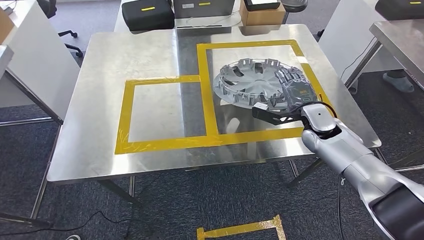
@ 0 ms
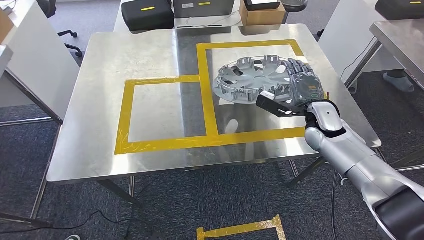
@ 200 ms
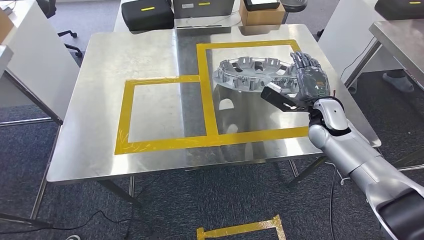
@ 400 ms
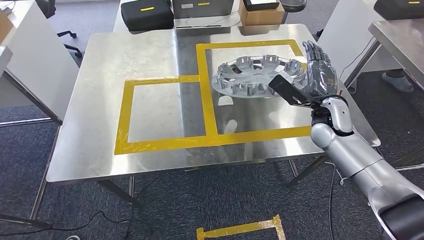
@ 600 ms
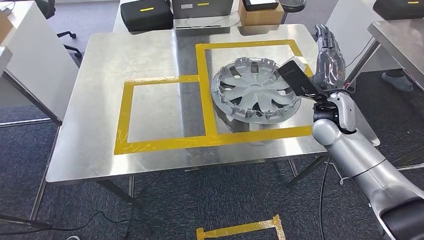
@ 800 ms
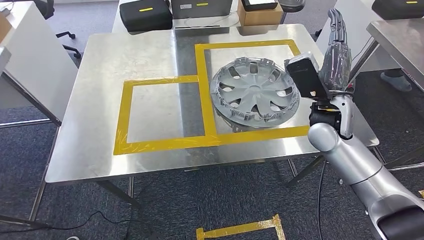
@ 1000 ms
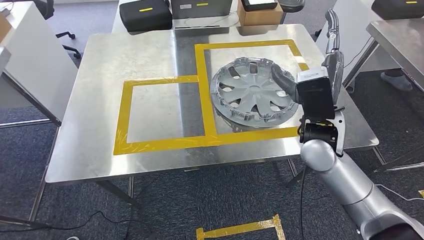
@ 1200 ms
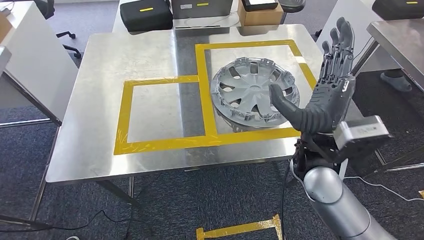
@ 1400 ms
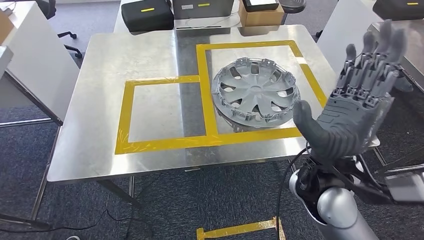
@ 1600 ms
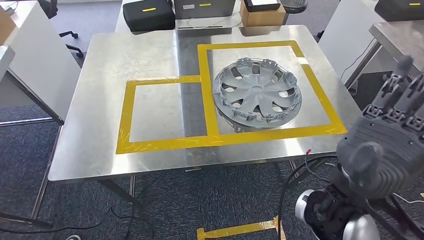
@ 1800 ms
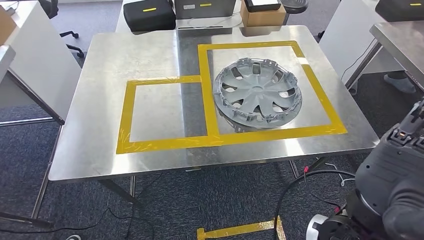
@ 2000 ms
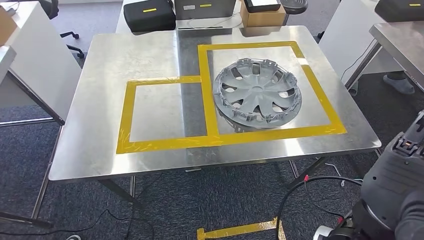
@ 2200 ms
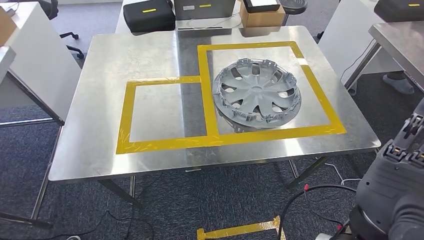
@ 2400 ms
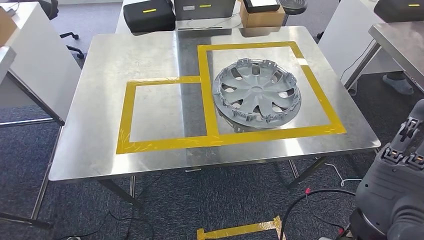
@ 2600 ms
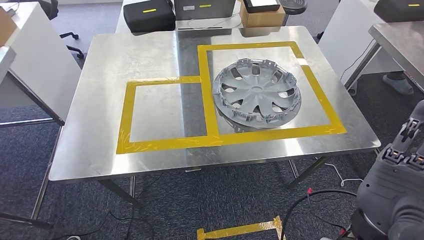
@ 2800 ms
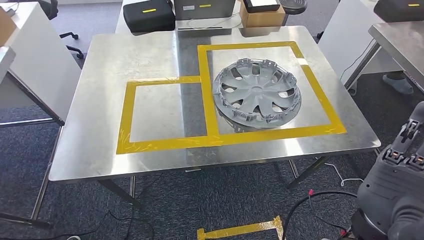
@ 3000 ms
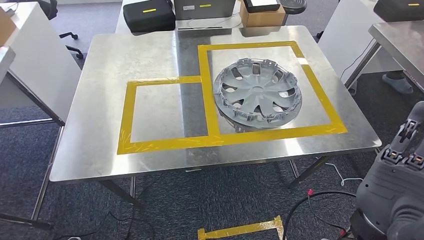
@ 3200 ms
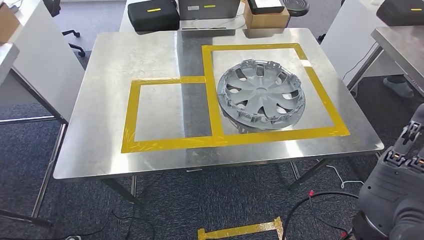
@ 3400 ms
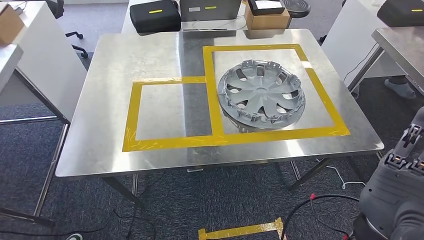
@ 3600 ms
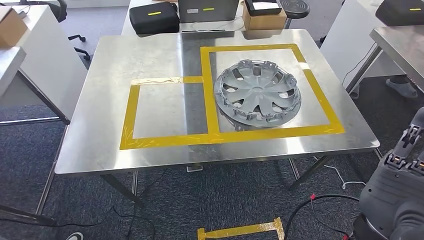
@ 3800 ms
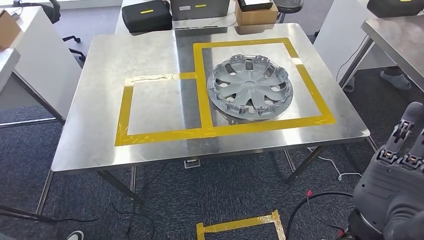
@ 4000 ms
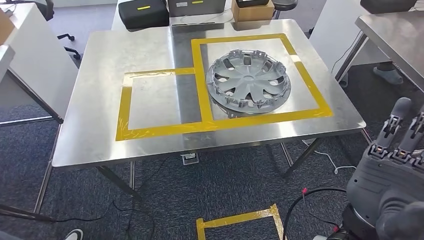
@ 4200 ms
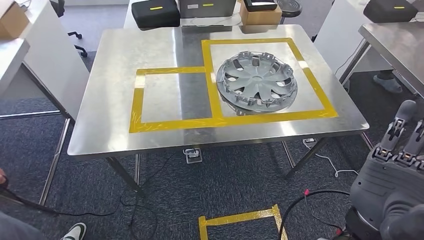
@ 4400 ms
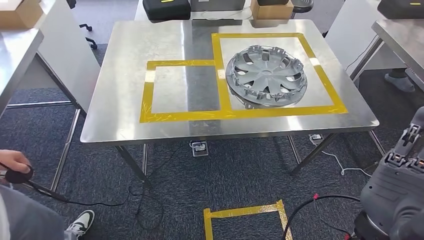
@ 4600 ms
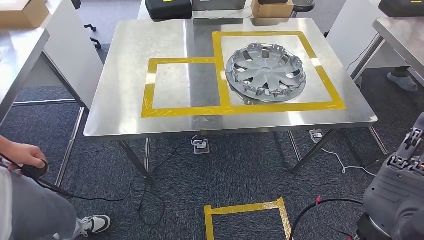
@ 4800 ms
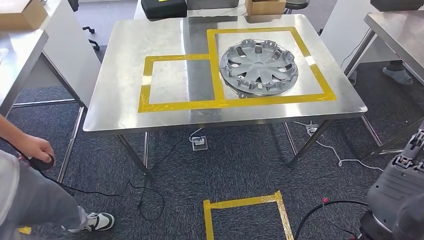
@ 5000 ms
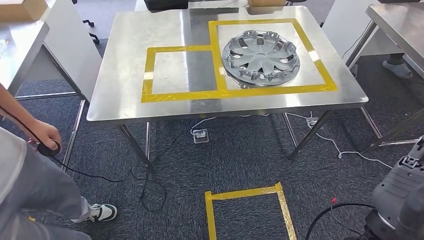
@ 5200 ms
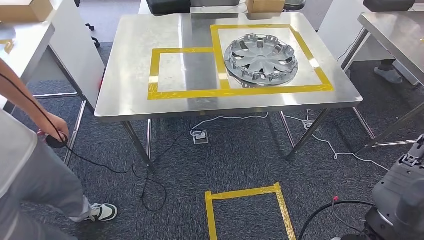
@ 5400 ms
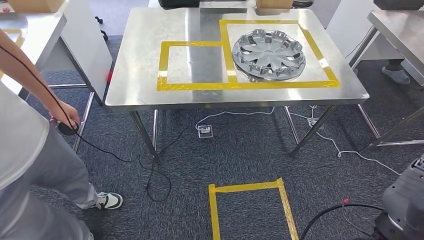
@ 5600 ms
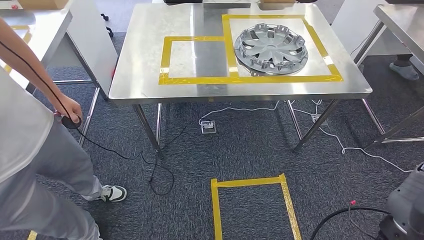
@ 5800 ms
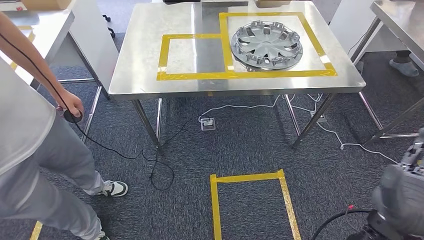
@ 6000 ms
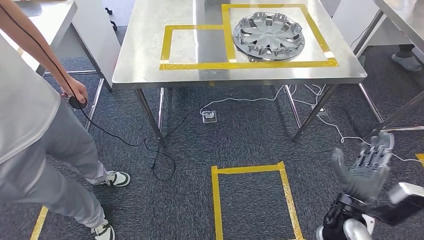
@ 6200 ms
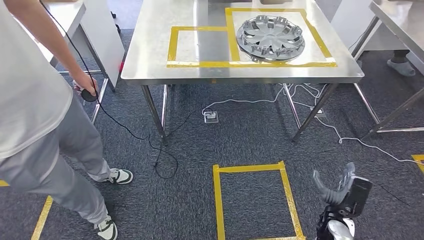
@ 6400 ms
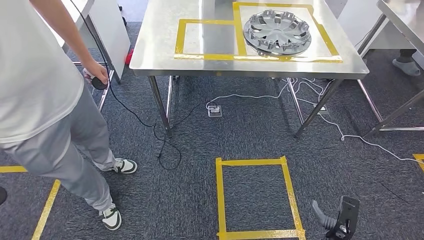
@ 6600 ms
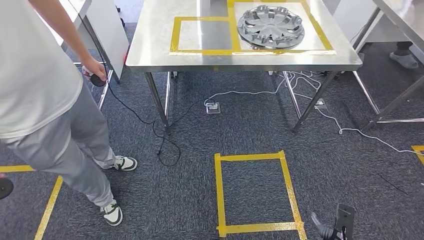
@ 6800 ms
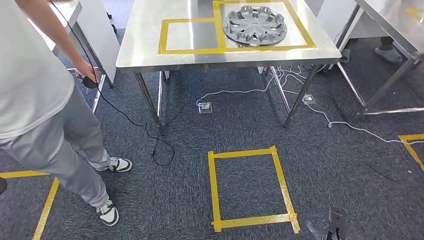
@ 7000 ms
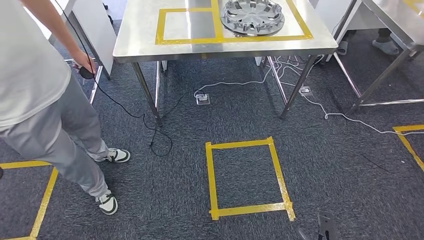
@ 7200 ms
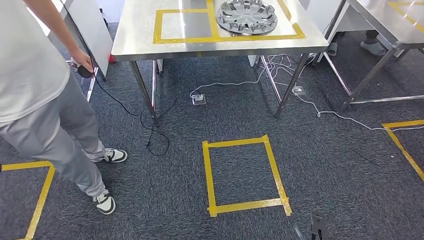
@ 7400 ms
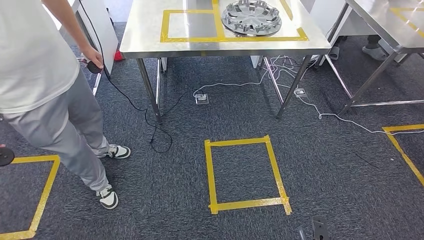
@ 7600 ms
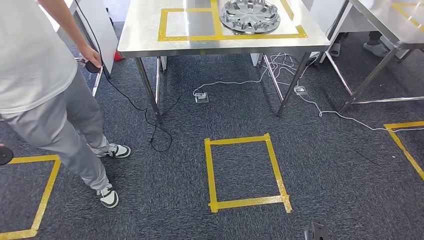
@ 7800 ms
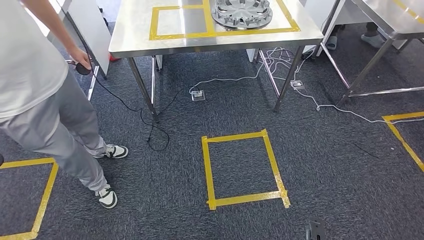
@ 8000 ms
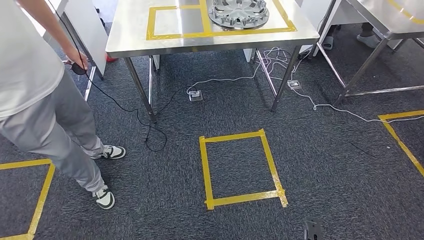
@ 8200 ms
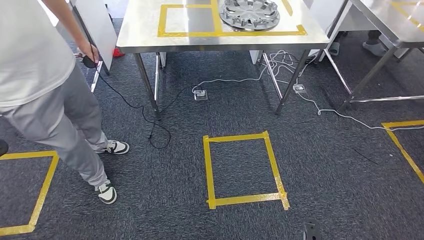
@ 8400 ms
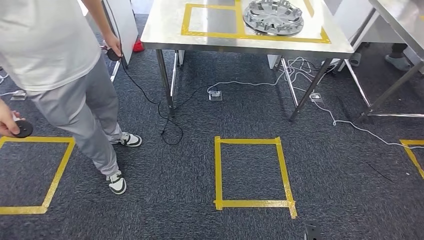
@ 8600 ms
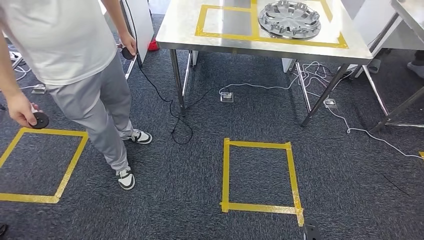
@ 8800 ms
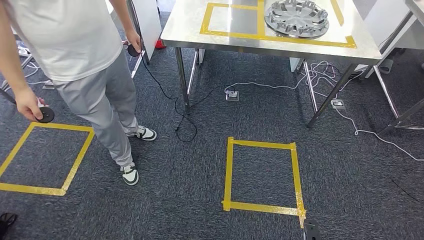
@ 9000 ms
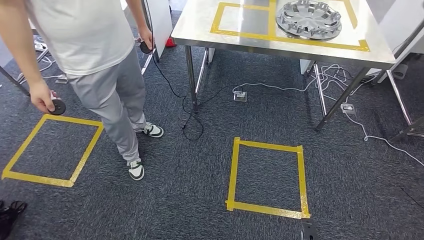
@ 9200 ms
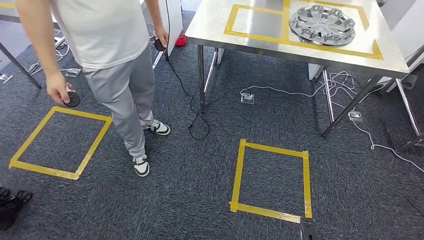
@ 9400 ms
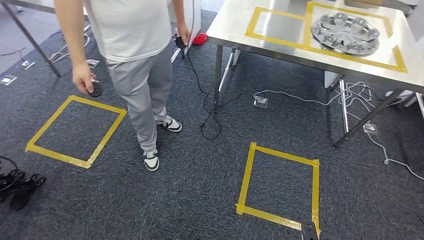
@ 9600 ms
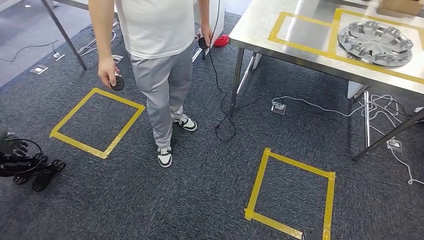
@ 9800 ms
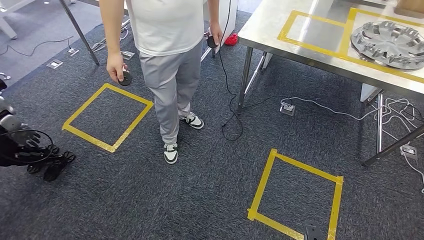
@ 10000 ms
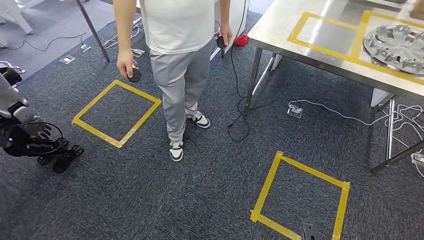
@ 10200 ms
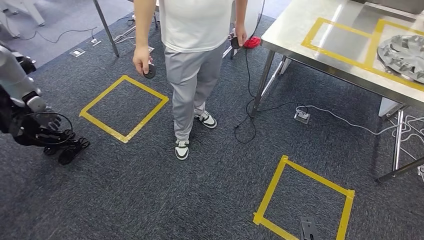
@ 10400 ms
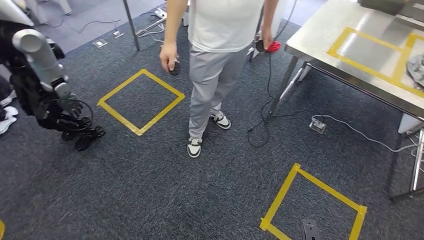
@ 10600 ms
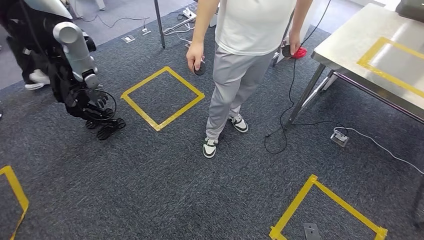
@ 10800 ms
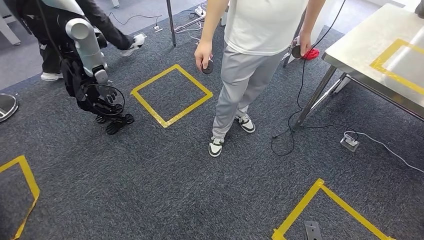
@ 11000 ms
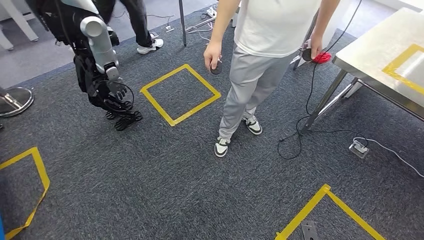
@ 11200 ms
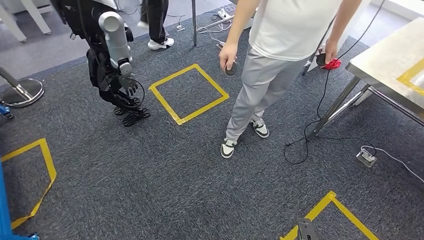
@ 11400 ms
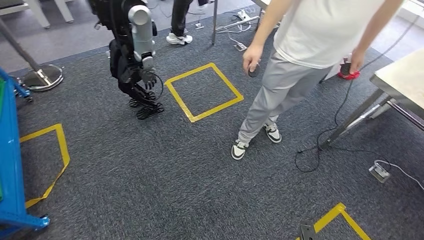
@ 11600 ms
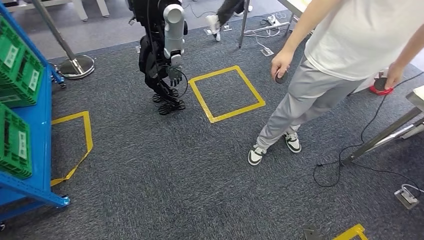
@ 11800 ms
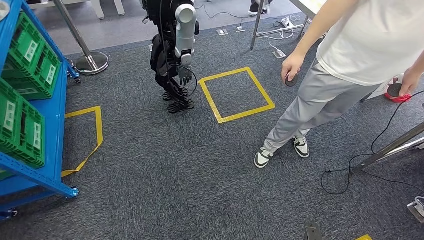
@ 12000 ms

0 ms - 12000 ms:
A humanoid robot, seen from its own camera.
1600 ms - 3000 ms: The right hand goes about 10 cm backward.

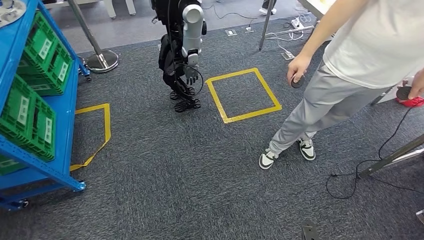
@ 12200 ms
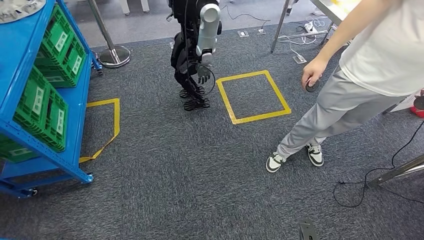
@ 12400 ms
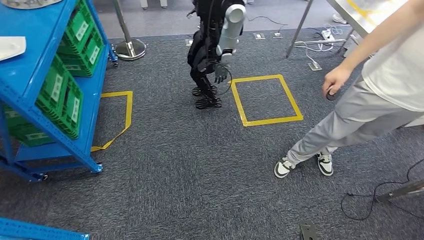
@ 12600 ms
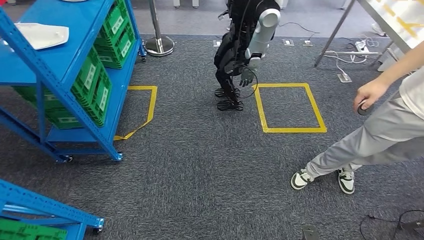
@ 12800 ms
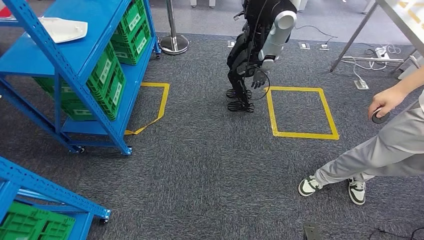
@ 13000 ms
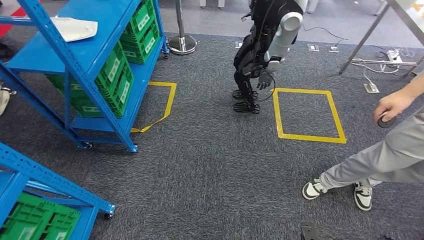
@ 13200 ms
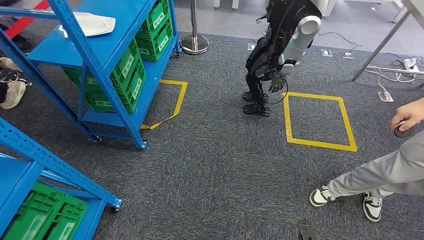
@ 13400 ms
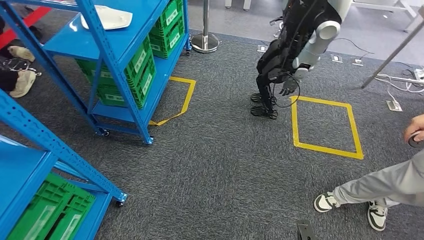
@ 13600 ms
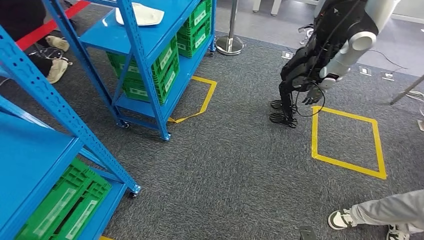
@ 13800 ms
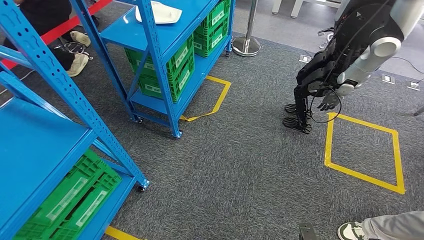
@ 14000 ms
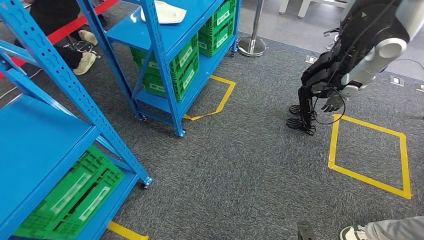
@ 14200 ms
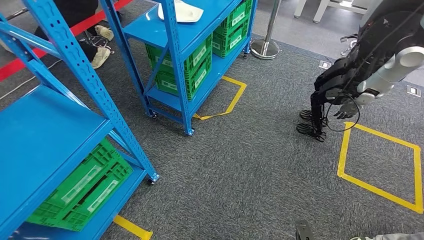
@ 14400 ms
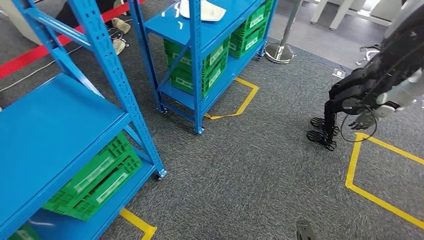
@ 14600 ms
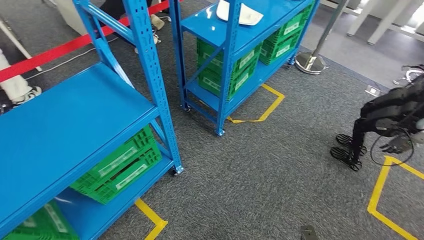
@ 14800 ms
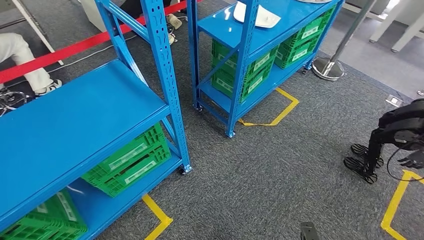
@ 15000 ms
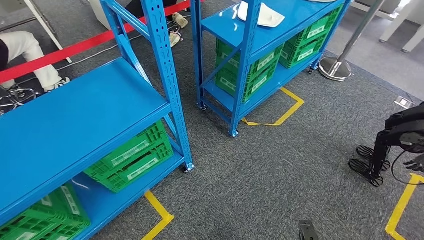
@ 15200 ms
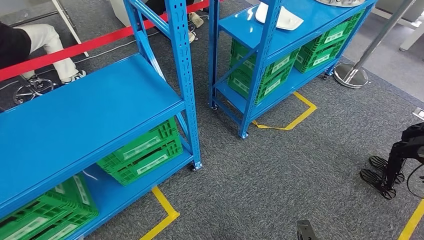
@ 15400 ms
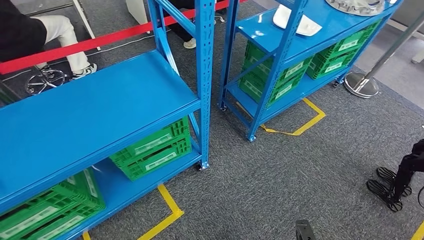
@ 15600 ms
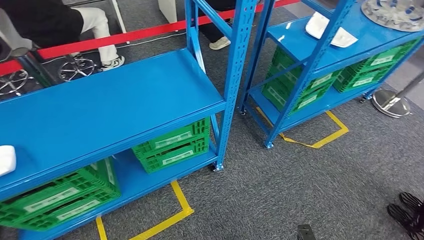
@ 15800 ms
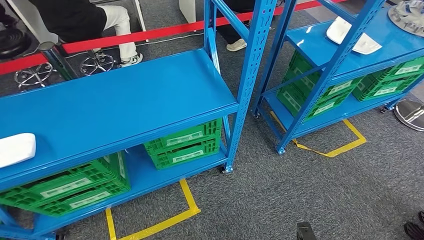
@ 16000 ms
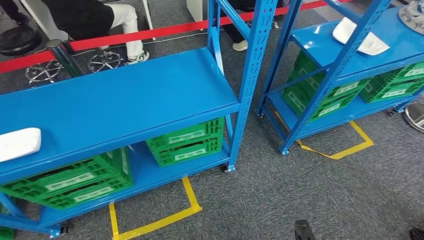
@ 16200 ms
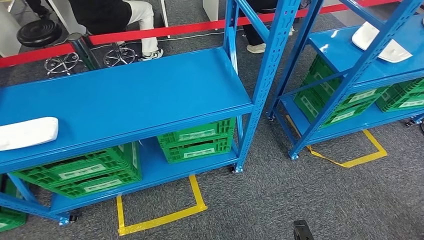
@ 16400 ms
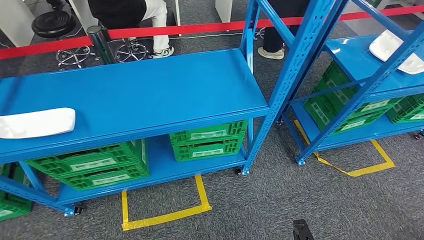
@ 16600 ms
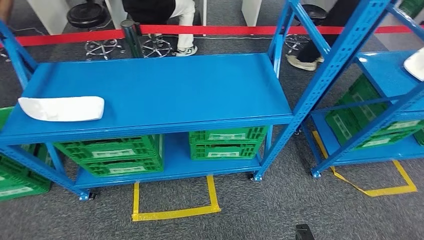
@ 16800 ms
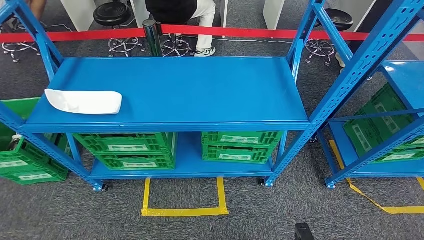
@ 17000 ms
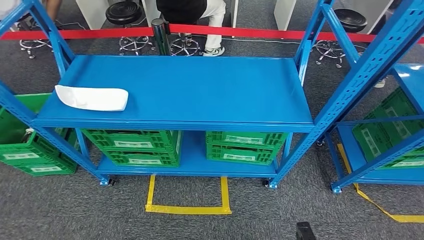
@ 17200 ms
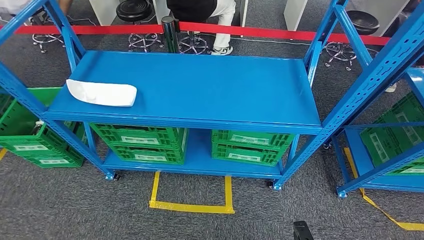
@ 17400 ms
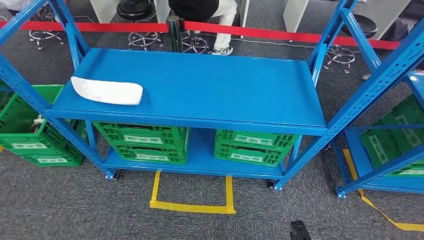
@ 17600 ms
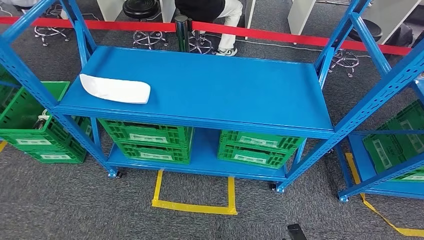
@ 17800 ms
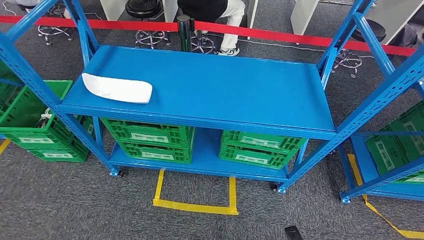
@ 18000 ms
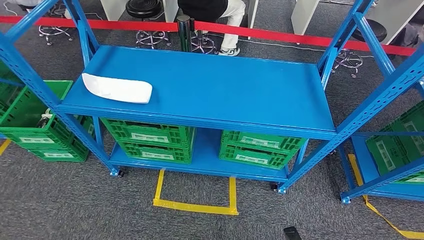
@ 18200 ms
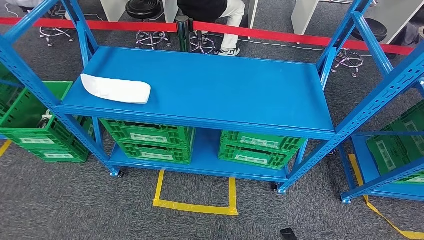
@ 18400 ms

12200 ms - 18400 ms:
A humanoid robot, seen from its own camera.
Step, 12200 ms - 18400 ms: Return to the initial position at the workbench.
